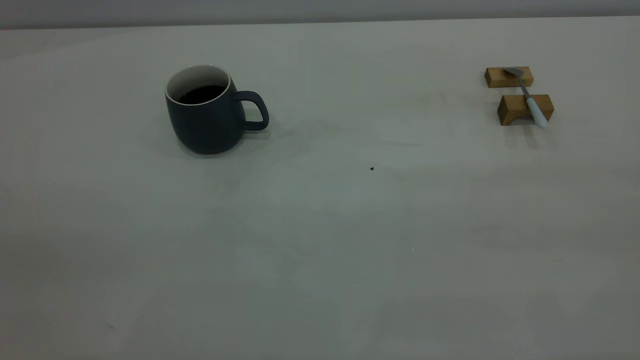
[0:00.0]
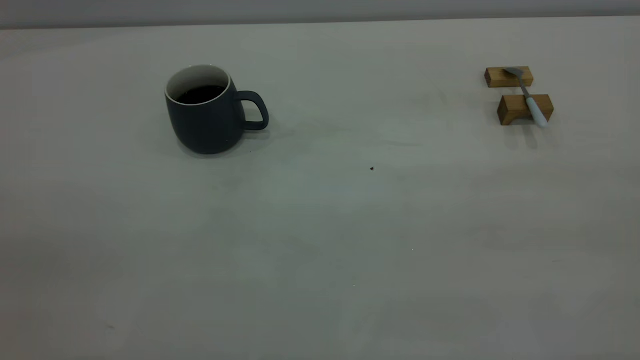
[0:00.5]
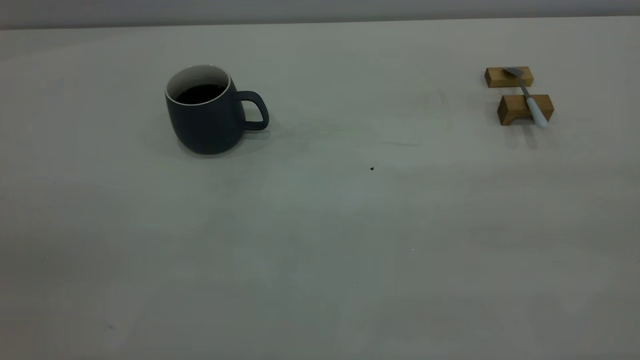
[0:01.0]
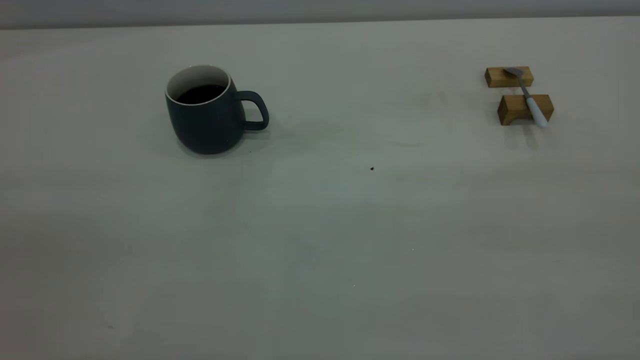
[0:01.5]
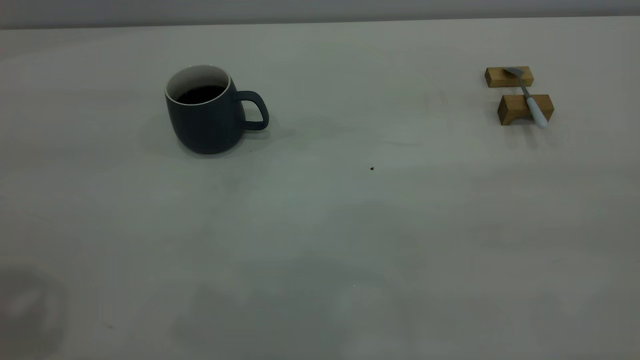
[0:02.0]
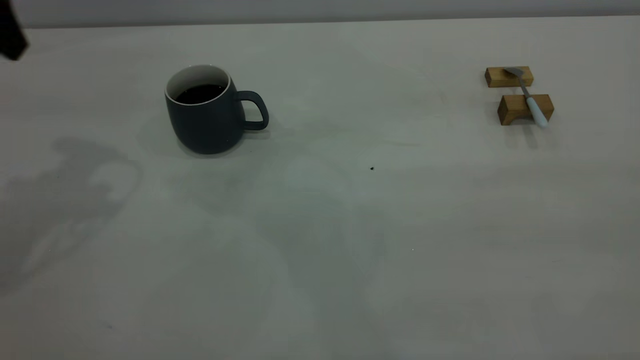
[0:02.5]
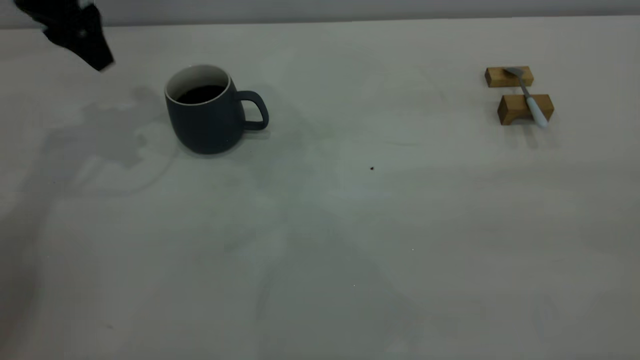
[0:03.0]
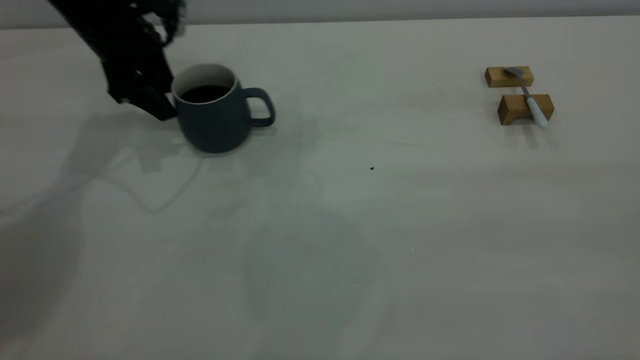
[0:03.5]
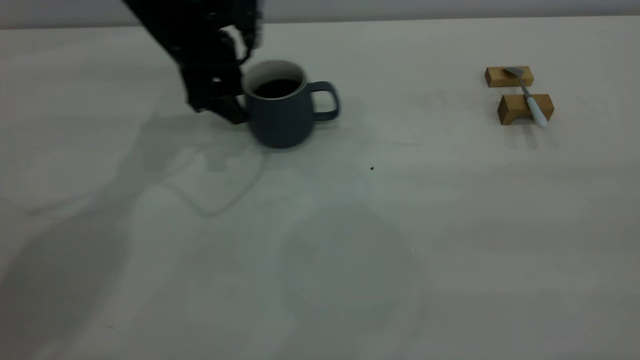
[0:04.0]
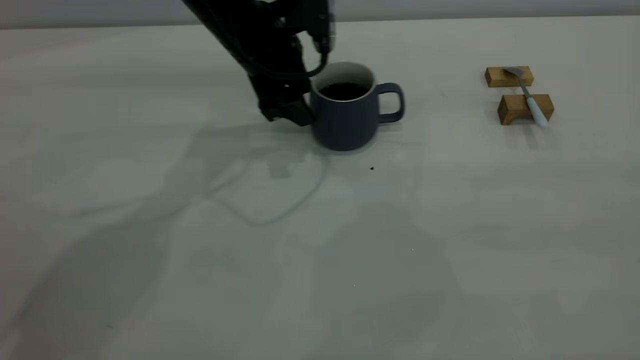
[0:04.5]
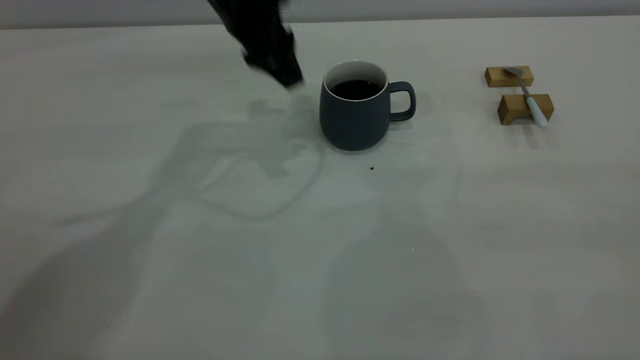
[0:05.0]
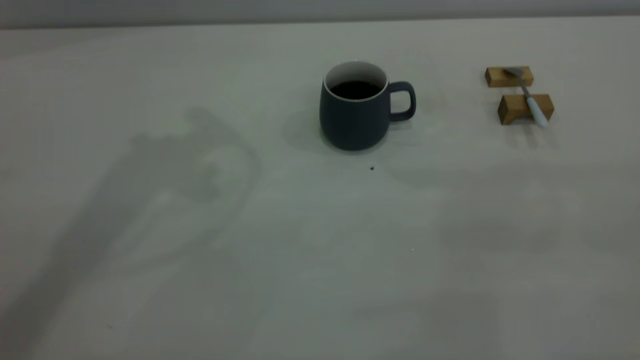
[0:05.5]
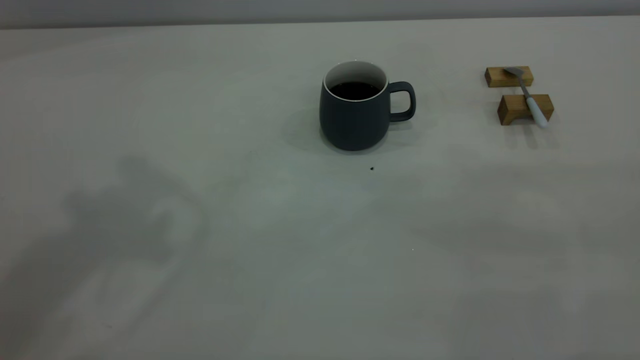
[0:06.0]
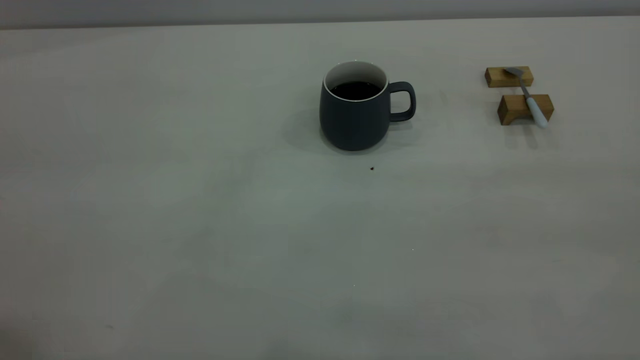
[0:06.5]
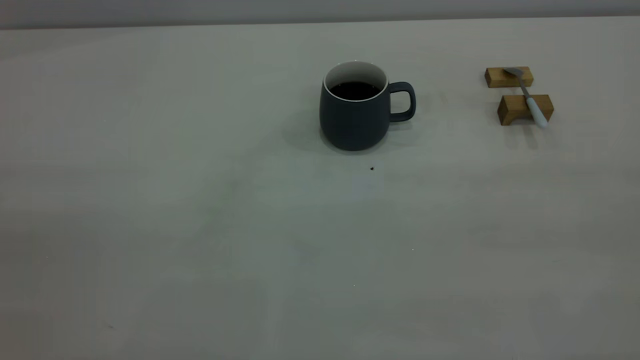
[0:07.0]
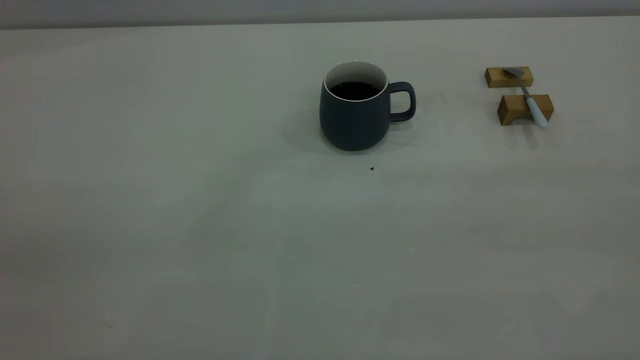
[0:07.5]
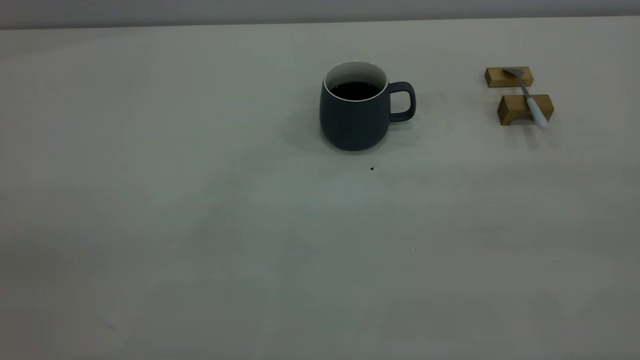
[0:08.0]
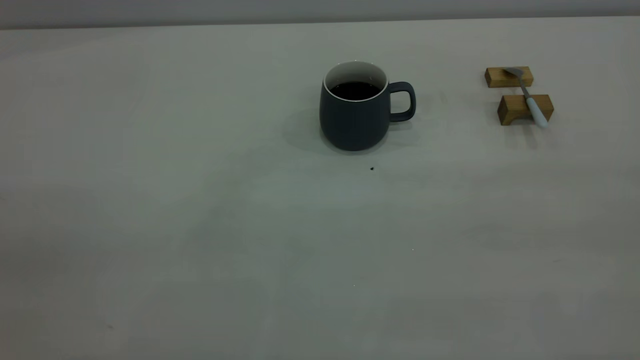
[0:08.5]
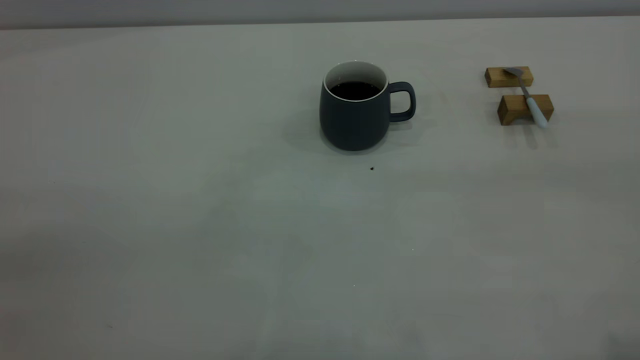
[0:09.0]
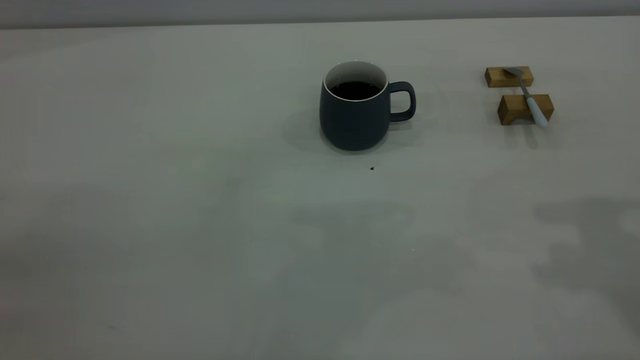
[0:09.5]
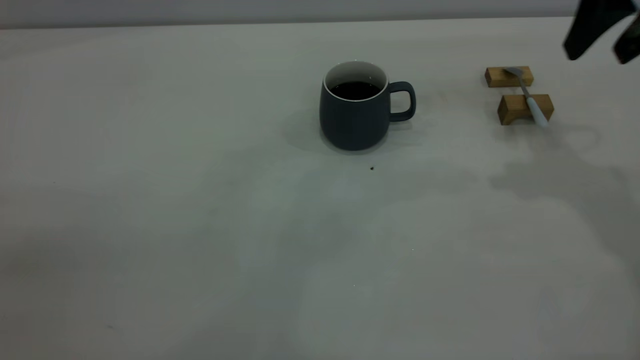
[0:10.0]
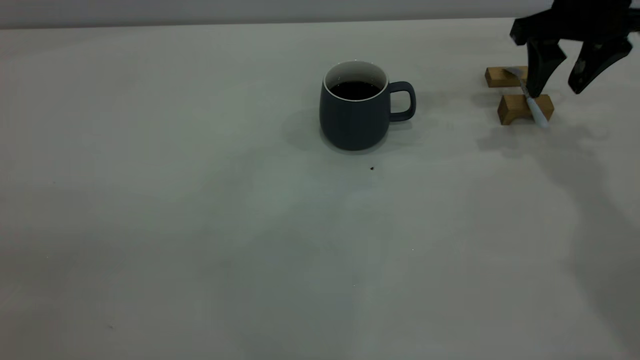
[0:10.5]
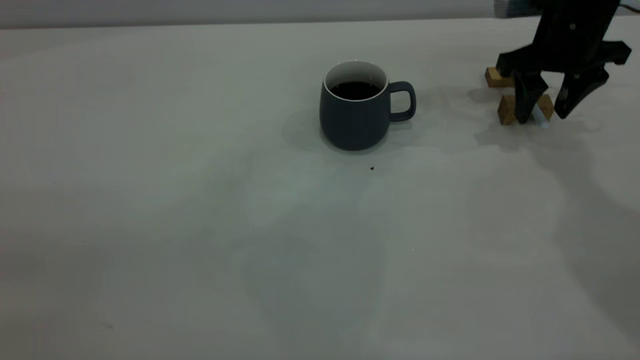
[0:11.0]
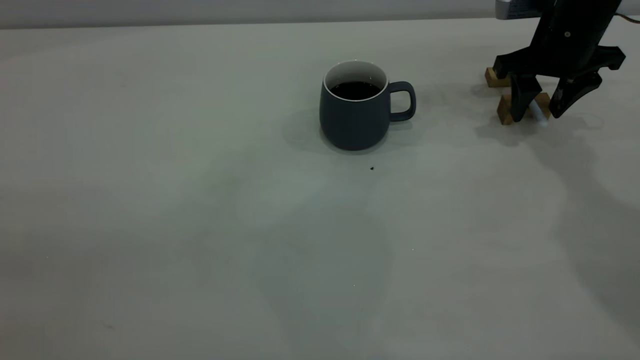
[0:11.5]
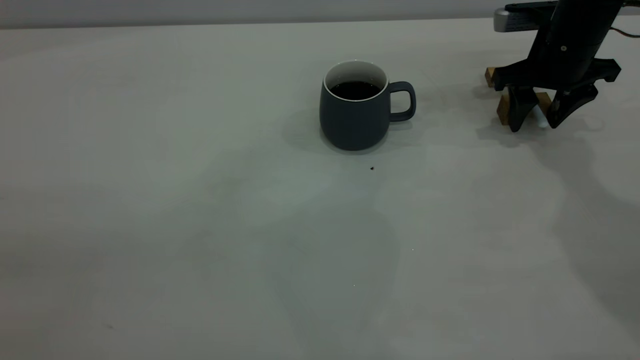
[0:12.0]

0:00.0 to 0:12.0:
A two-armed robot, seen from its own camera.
Step, 0:00.0 to 0:04.5: Move the cup with coffee to the center of view.
0:02.0 to 0:04.0: The left gripper heads forward, downward and to the right, covering approximately 40 cm.
0:04.0 to 0:06.0: The left gripper heads upward and backward, covering about 40 cm.
0:08.0 to 0:10.0: The right gripper travels forward by approximately 35 cm, and opens up.
0:10.0 to 0:12.0: The right gripper travels downward and forward by roughly 20 cm.

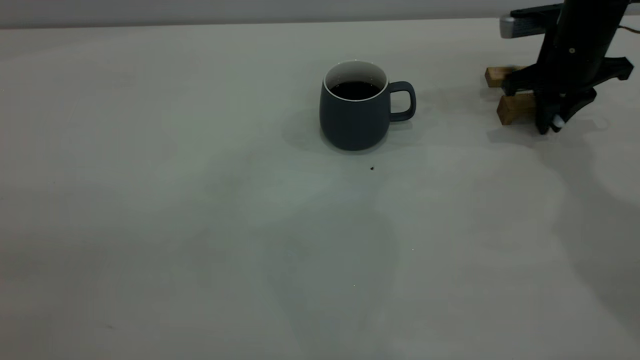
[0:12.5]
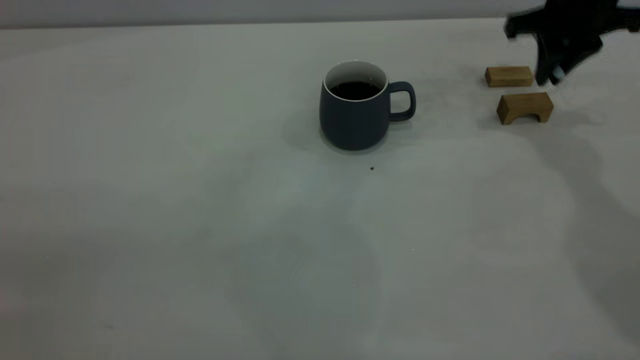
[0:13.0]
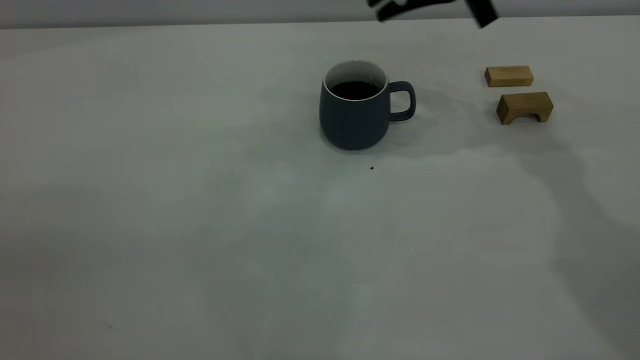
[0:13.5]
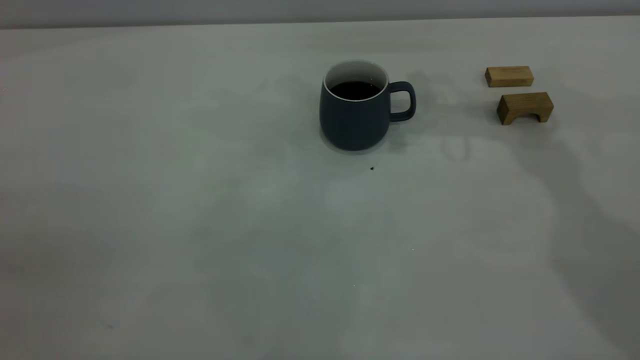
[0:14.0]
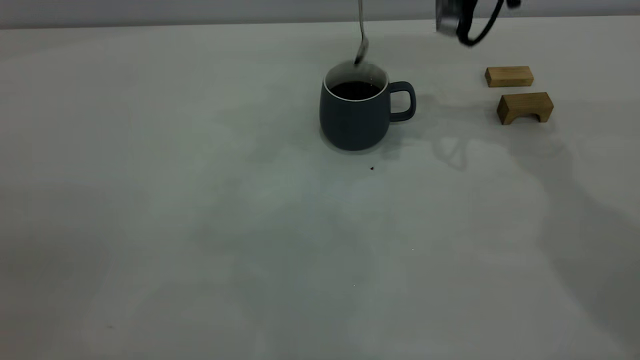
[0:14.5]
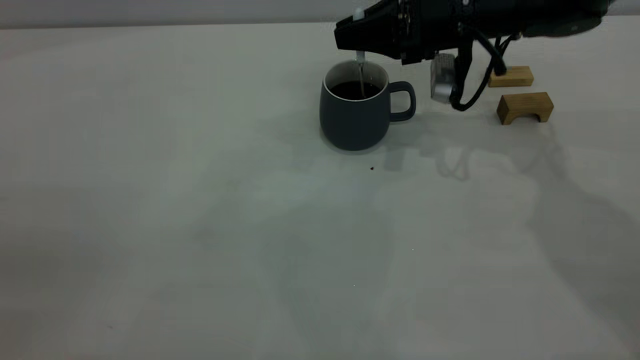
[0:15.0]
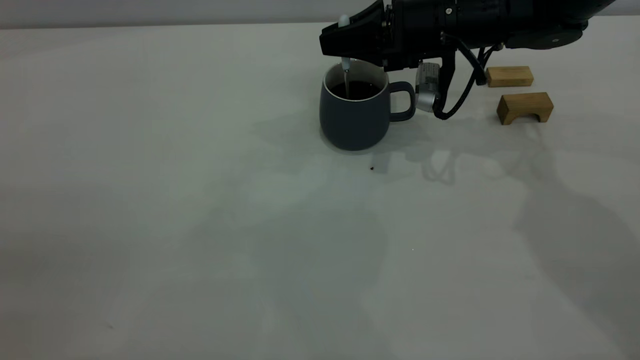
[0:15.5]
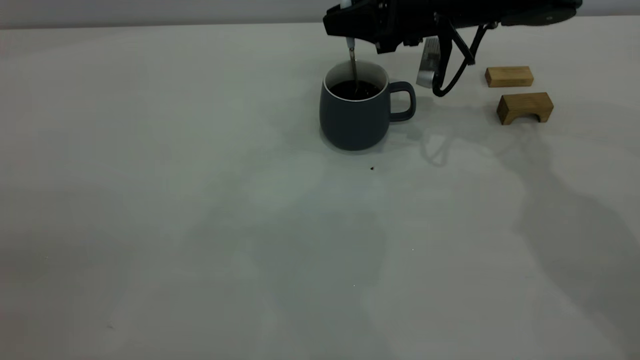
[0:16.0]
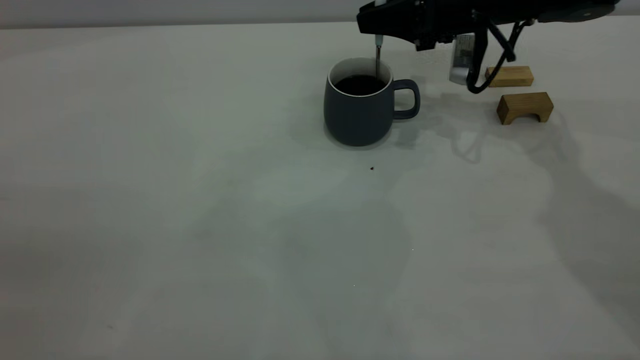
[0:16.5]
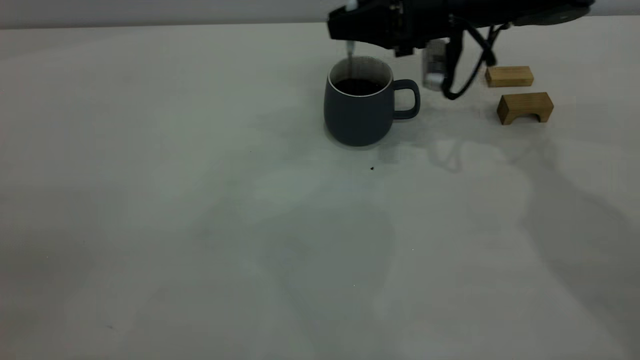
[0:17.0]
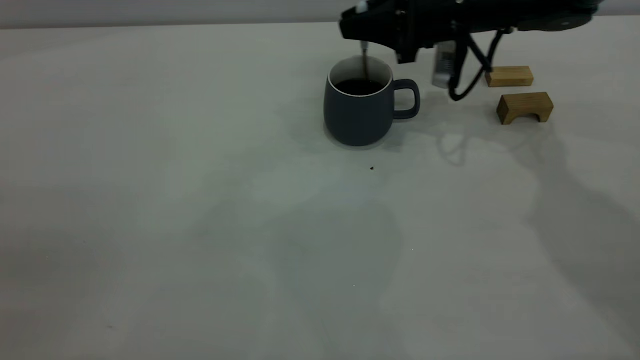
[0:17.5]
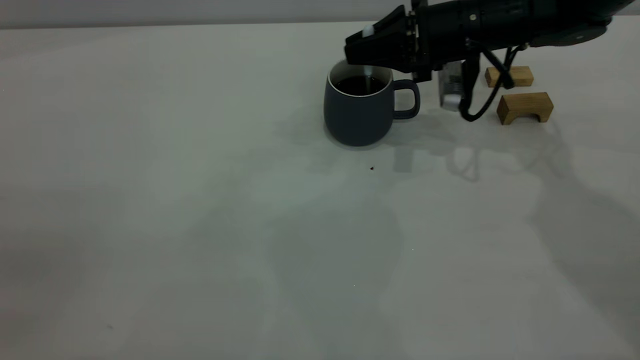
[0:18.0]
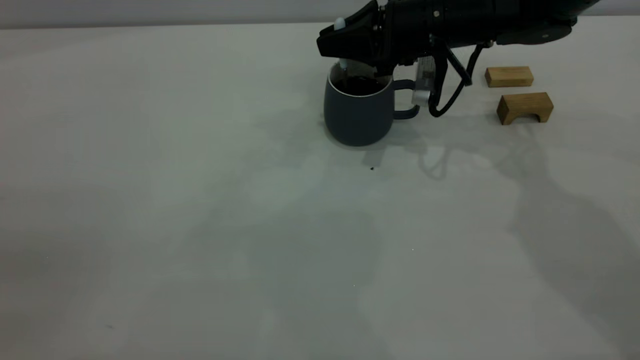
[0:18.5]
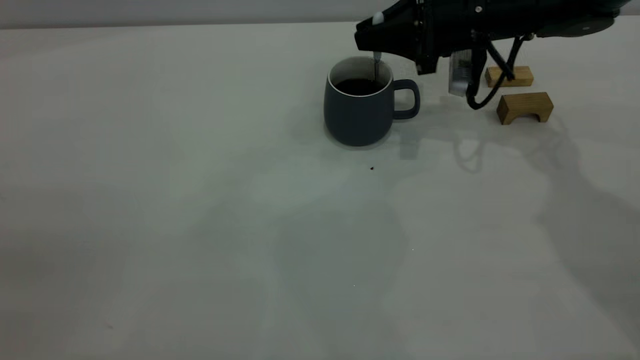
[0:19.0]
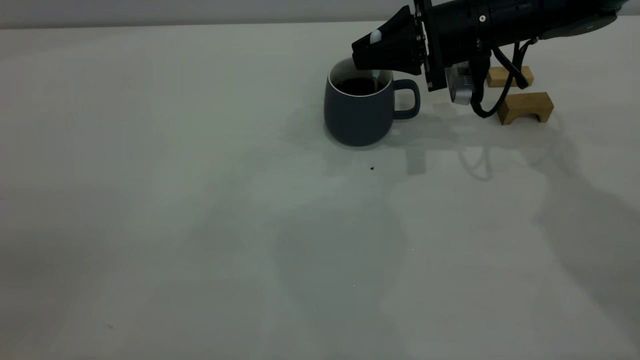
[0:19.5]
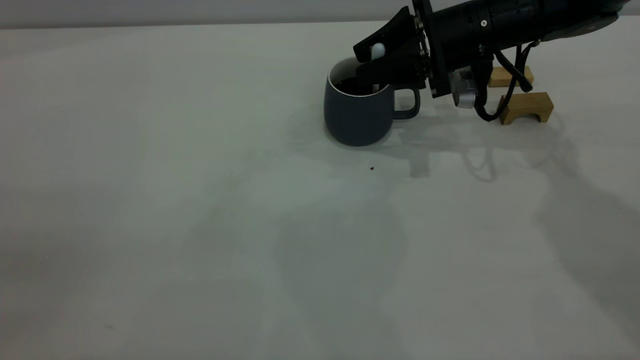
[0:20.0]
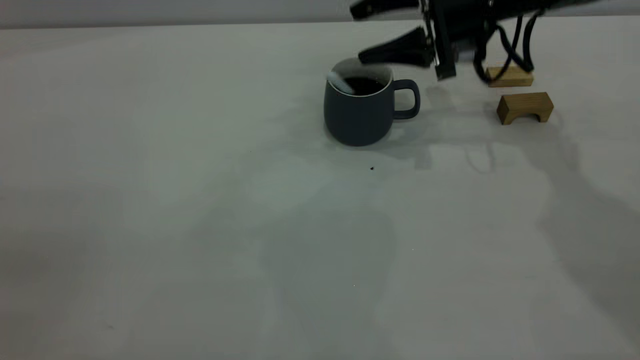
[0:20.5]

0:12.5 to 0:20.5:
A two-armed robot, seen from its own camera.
0:12.5 to 0:14.5: The right gripper travels to the left and upward by roughly 15 cm.
0:14.5 to 0:16.5: The right gripper is displaced downward by roughly 5 cm.
0:16.5 to 0:18.5: The grippers make only small movements.
0:18.5 to 0:20.5: The right gripper ends up approximately 5 cm from where it was, and opens up.
